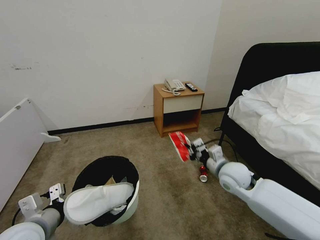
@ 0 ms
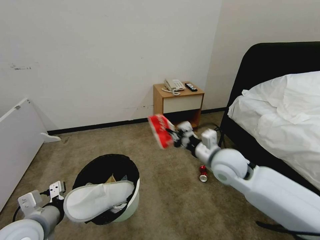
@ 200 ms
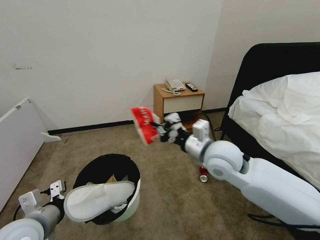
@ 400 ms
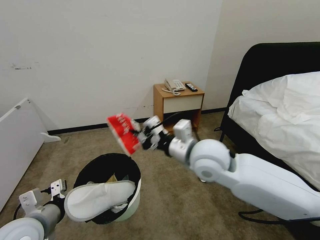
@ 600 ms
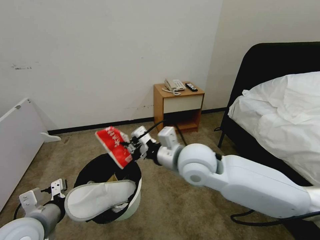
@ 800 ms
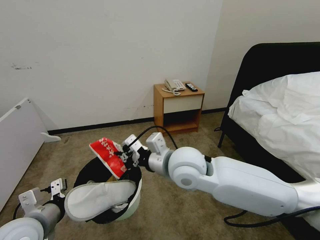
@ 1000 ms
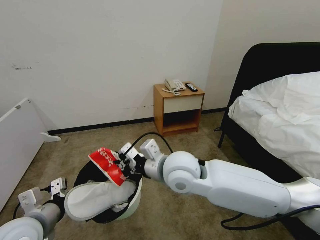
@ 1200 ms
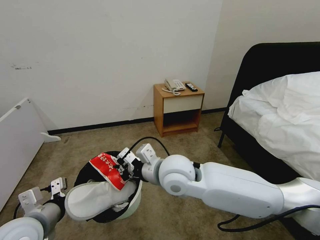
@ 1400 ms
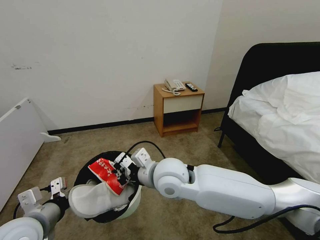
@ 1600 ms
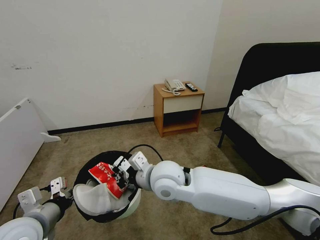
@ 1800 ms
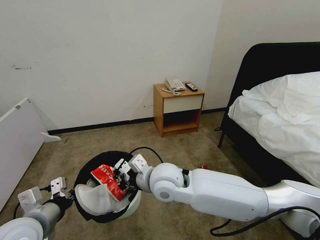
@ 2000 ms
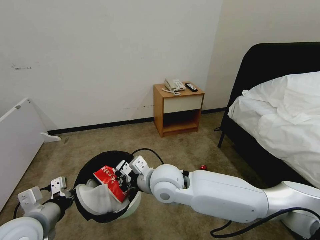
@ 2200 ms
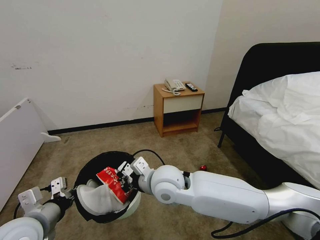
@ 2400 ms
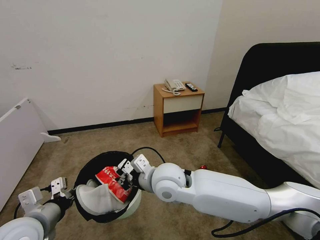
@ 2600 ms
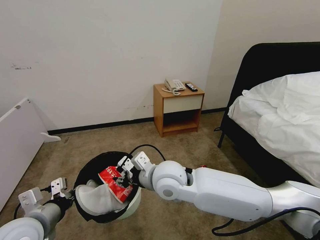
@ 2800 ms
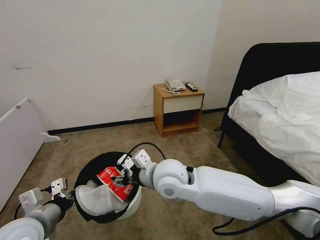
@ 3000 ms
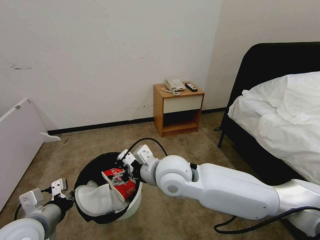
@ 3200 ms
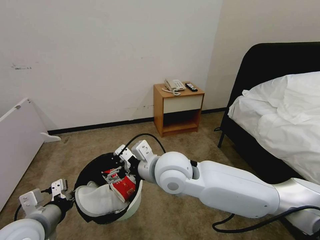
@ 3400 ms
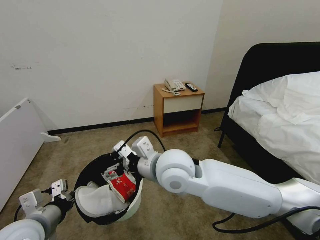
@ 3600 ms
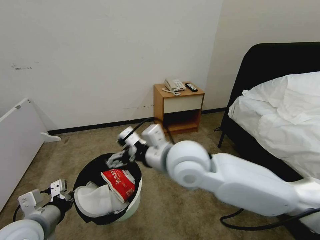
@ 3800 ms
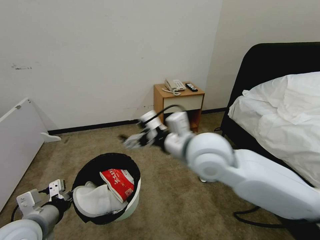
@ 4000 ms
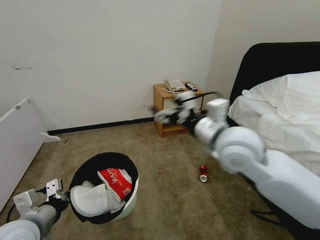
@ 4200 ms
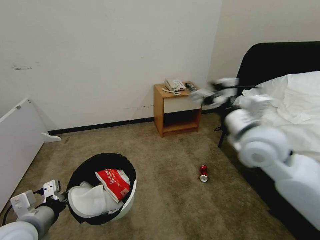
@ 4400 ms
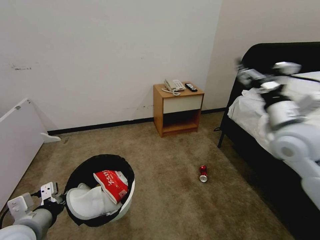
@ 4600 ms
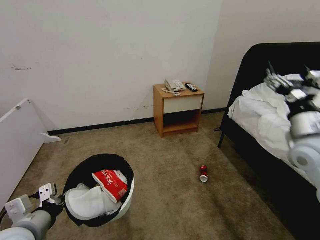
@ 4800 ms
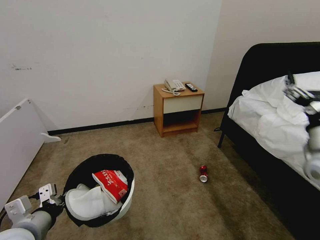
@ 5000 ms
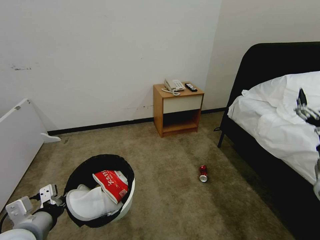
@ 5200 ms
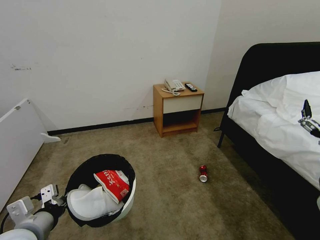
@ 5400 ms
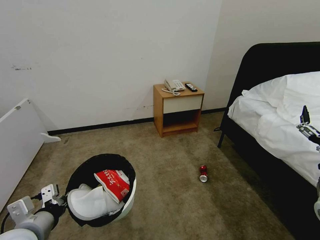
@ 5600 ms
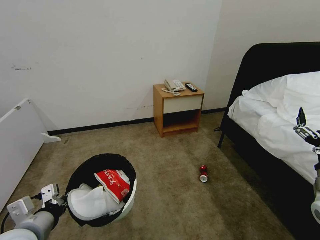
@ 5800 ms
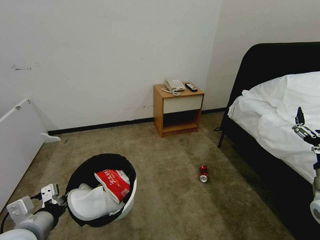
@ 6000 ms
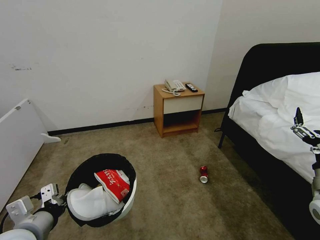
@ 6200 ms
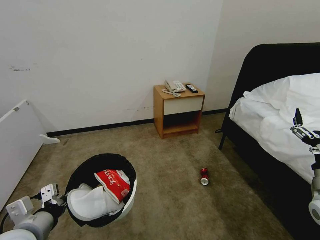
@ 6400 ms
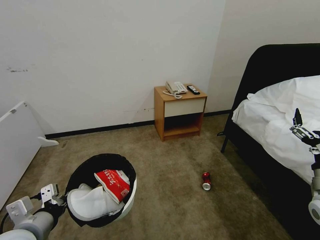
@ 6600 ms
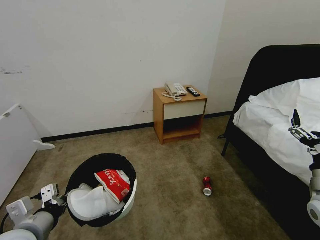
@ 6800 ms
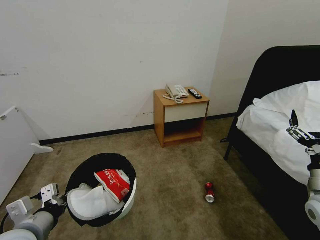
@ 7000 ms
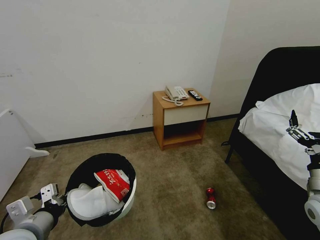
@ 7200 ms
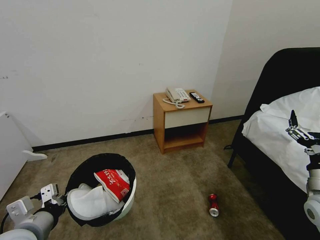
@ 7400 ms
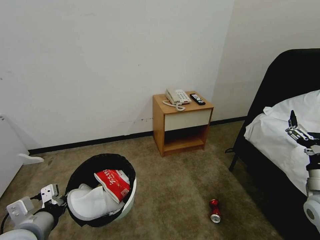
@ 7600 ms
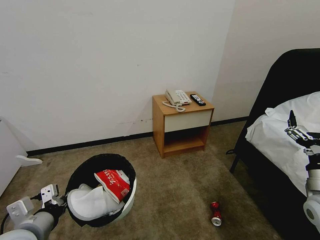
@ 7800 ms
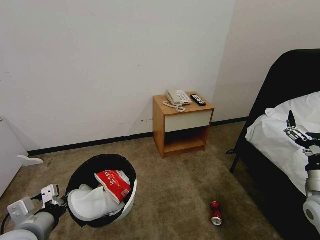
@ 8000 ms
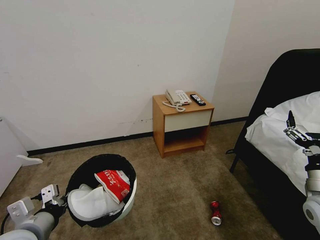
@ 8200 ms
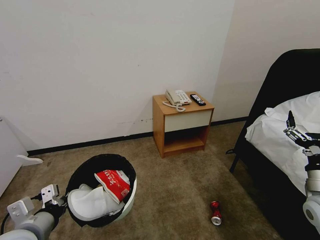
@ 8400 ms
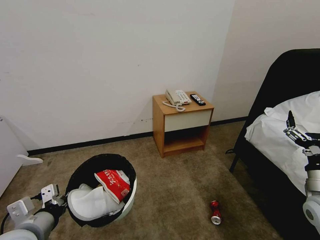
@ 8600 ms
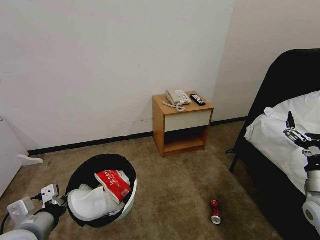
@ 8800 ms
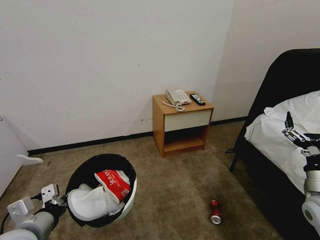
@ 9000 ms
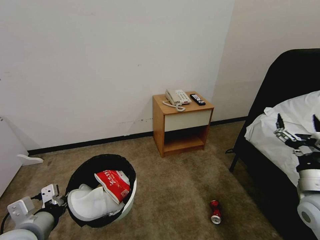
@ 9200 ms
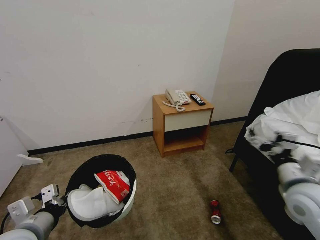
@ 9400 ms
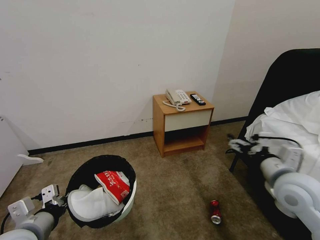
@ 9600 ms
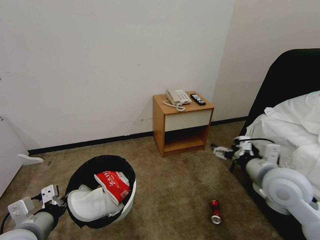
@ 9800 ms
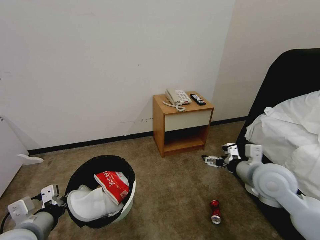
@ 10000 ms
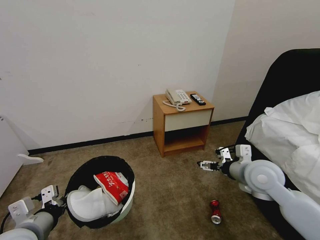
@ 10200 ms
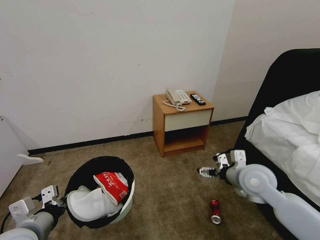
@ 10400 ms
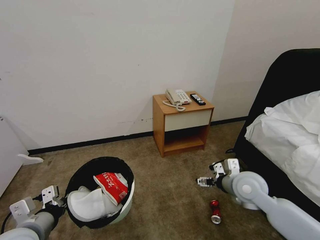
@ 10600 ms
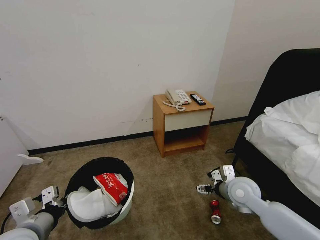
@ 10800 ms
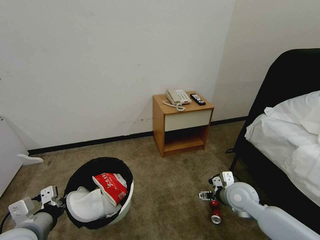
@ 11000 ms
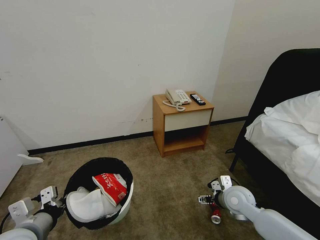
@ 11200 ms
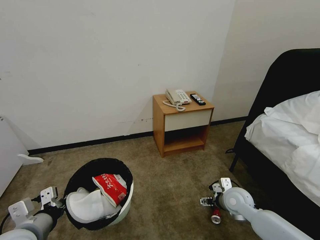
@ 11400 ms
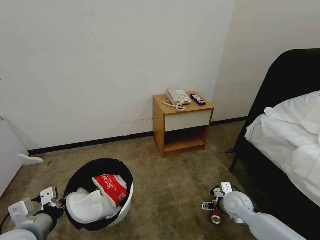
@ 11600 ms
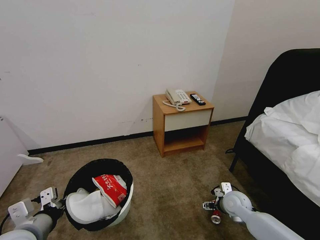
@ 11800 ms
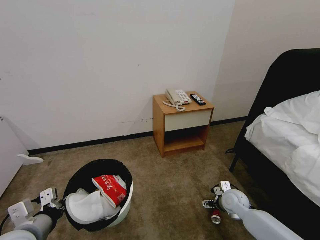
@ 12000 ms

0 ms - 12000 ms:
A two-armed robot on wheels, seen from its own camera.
Task of the whole recording: Pick up the trash bin, then pick up the garbage from the floor and place it into the trash bin.
0 ms - 1600 ms: The right gripper travels to the left and upward by about 25 cm.
1600 ms - 3000 ms: The right gripper opens.
3000 ms - 4400 ms: The right gripper is displaced to the right and upward by roughly 25 cm, and opens.
4400 ms - 6000 ms: The right gripper shifts about 25 cm to the right, downward and backward.
7600 ms - 9000 ms: Neither gripper changes place.
9000 ms - 10400 ms: The right gripper heads to the left and forward, covering some 15 cm.
10400 ms - 12000 ms: The right gripper shifts about 20 cm downward.

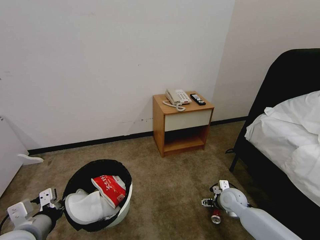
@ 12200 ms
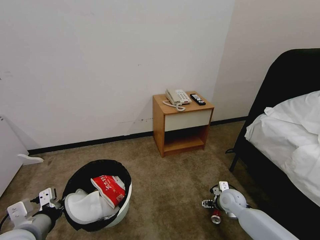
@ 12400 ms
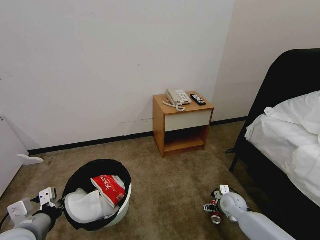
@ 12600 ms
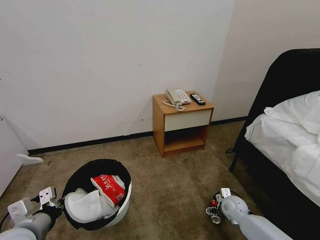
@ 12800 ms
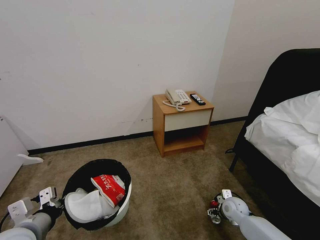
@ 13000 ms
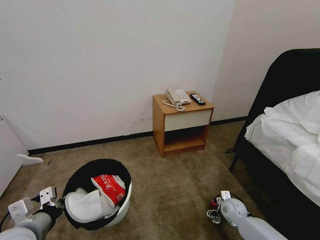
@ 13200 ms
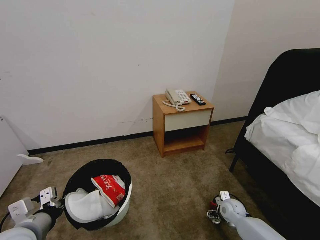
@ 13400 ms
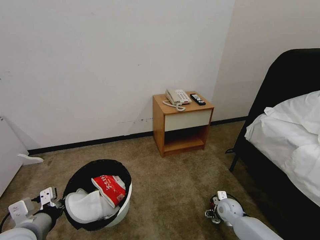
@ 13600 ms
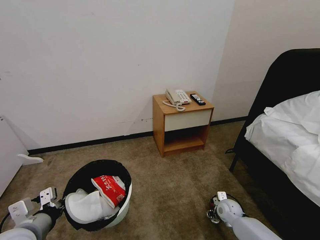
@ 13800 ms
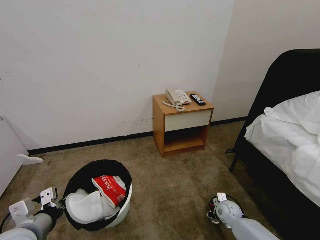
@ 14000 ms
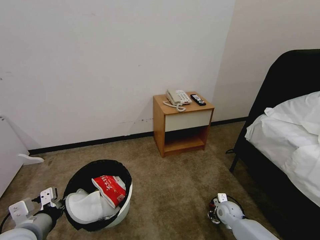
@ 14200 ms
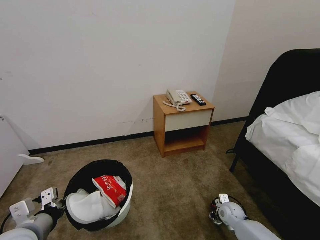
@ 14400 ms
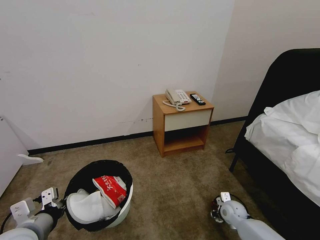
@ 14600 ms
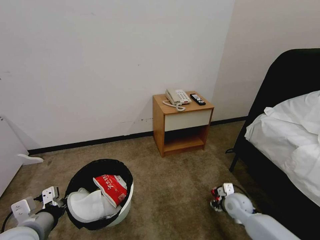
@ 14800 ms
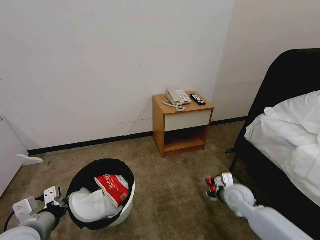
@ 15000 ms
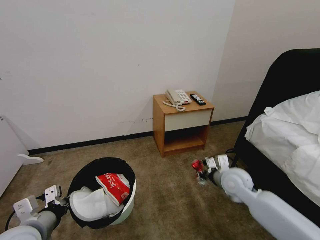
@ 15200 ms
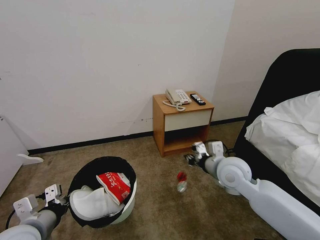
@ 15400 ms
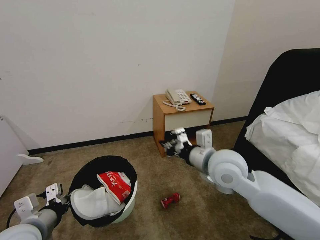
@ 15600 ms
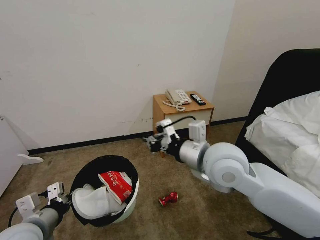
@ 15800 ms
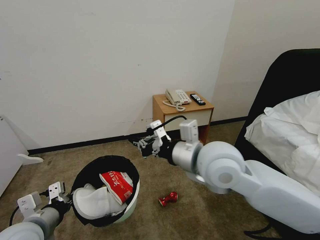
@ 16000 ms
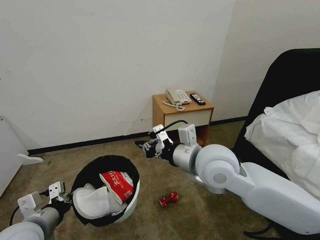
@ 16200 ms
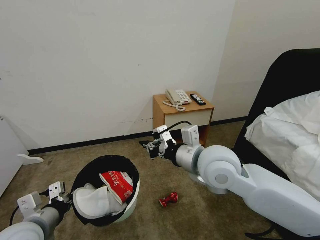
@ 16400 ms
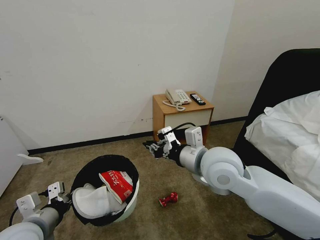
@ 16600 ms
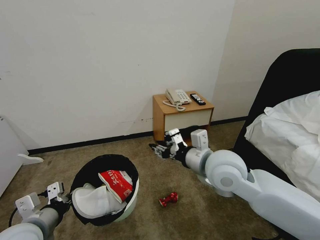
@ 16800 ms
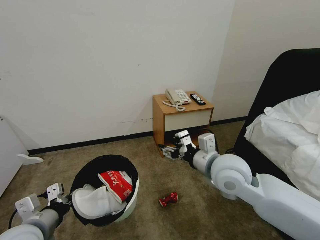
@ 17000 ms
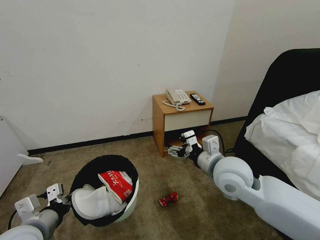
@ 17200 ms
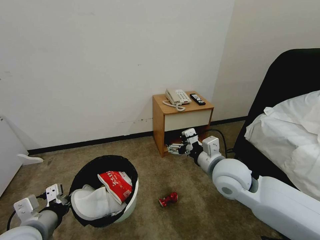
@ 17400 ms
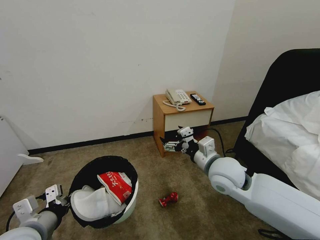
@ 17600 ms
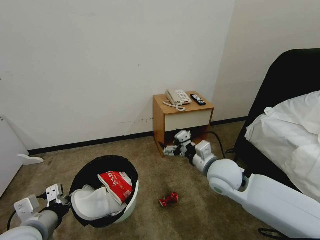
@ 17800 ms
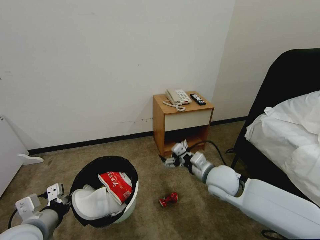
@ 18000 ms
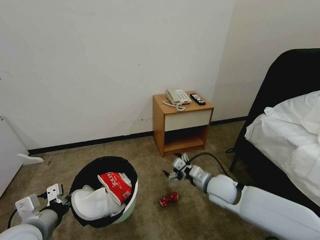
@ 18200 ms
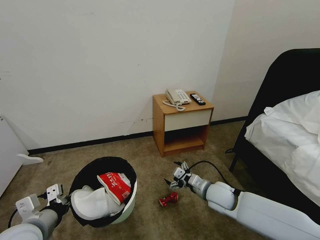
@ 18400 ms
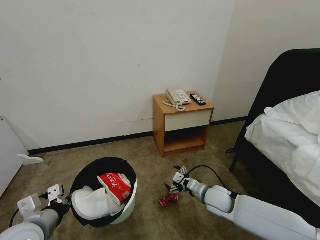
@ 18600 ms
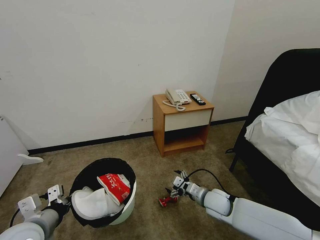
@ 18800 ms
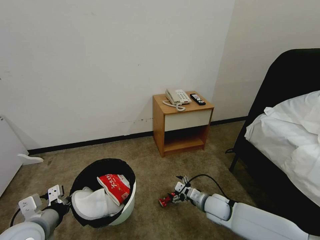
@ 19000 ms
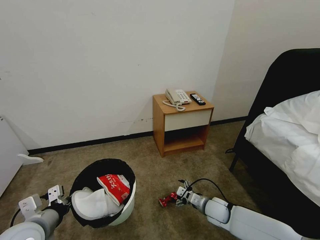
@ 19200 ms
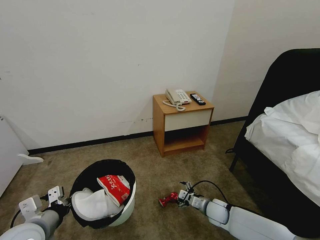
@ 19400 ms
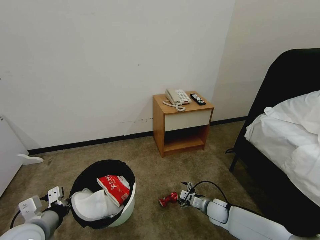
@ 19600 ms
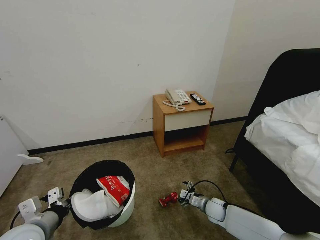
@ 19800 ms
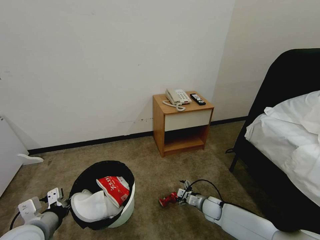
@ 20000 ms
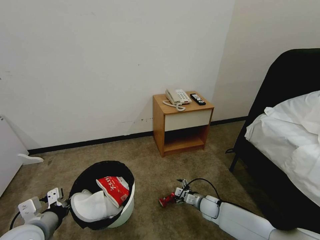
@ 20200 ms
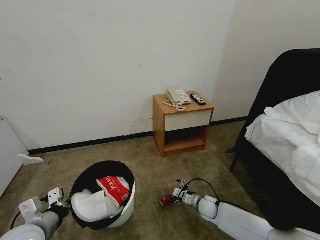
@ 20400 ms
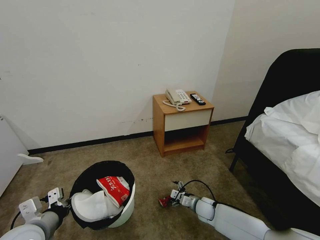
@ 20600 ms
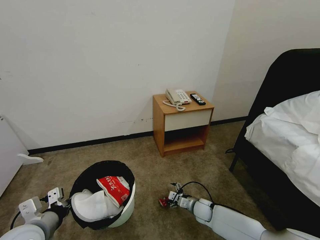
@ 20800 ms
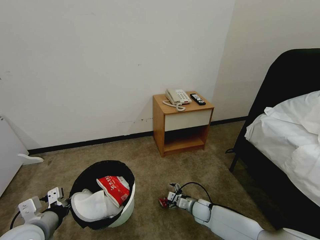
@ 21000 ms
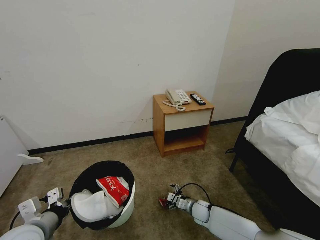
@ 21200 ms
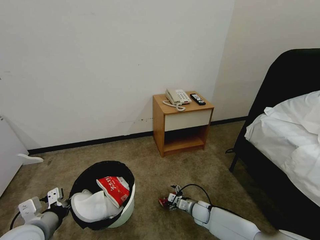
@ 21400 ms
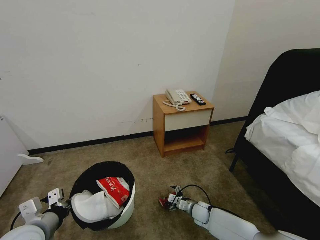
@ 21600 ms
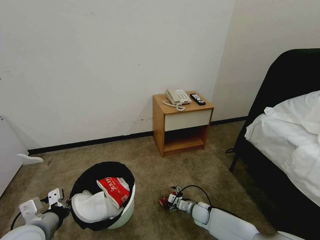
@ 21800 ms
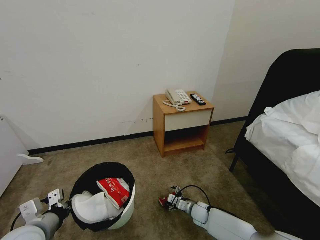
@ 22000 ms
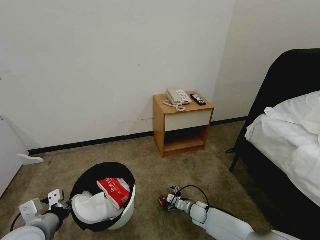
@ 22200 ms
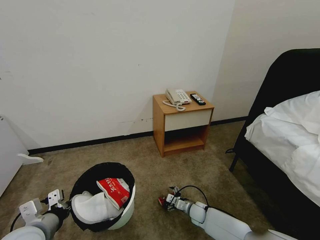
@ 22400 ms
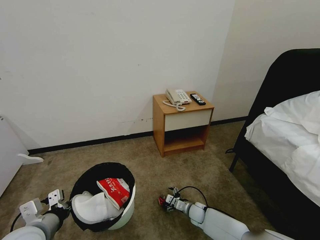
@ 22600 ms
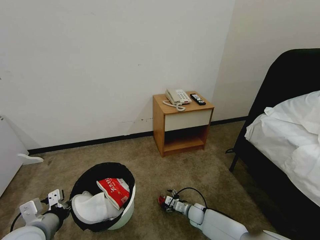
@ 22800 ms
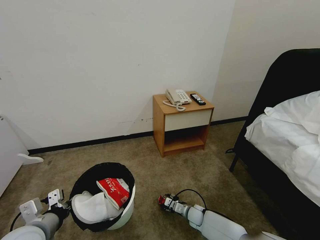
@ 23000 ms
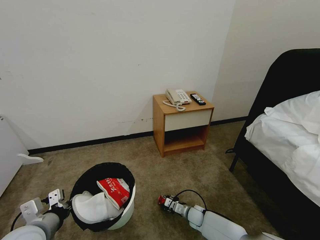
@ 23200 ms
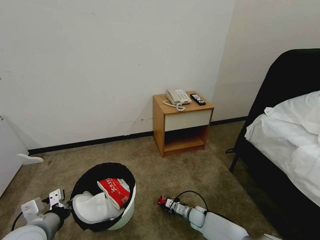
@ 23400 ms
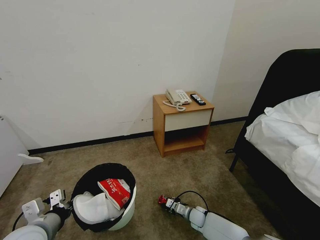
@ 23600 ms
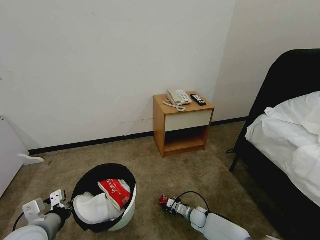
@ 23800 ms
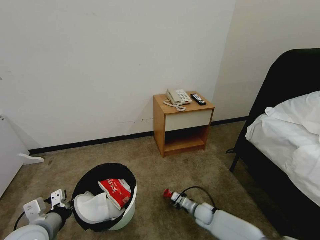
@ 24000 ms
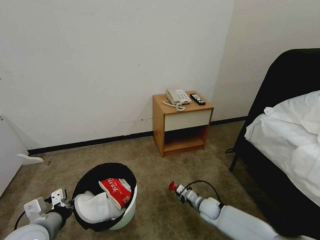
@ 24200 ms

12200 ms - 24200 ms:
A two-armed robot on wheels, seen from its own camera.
Task of the whole recording: Pick up the trash bin, then pick up the garbage from the floor and place it into the trash bin.
12200 ms - 13800 ms: The right gripper is displaced downward by some 10 cm.
13800 ms - 15200 ms: The right gripper shifts some 20 cm upward, and closes its fingers.
15200 ms - 16600 ms: The right gripper shifts some 20 cm upward, to the left and backward.
16600 ms - 18200 ms: The right gripper moves downward, some 20 cm, and opens.
18200 ms - 19800 ms: The right gripper heads downward, covering approximately 20 cm.
19800 ms - 21200 ms: The right gripper heads to the left, covering about 5 cm.
21200 ms - 22600 ms: The grippers stay close to where they were, moving slightly.
22600 ms - 24200 ms: The right gripper shifts some 5 cm upward, and closes.
